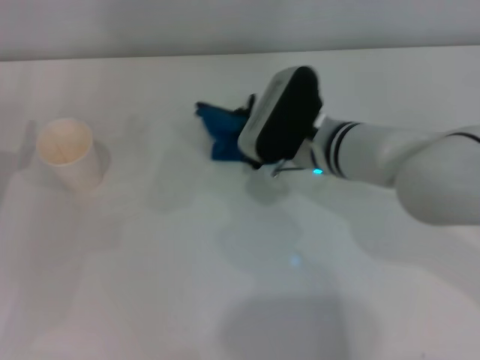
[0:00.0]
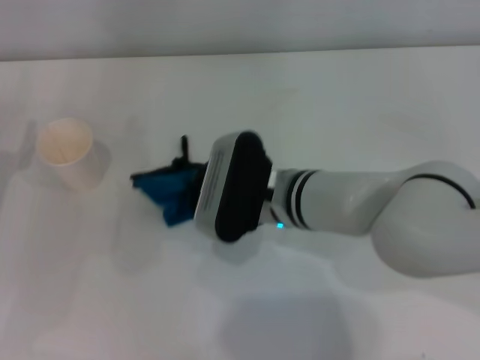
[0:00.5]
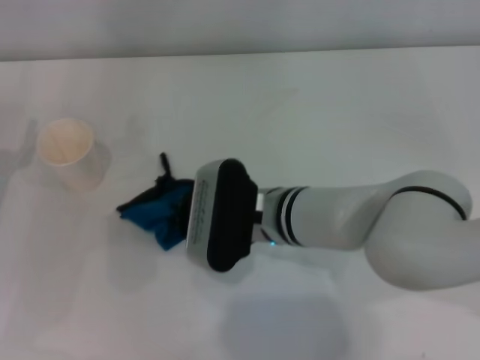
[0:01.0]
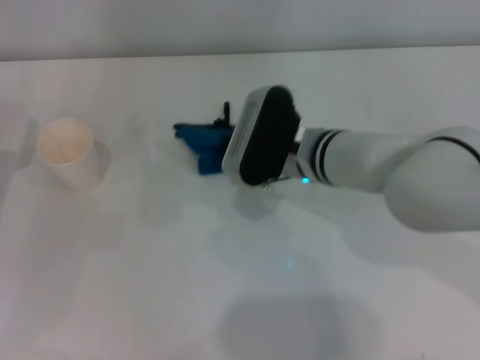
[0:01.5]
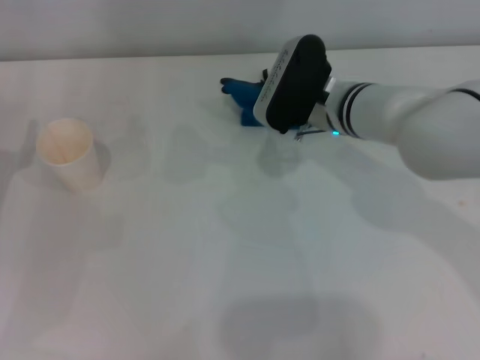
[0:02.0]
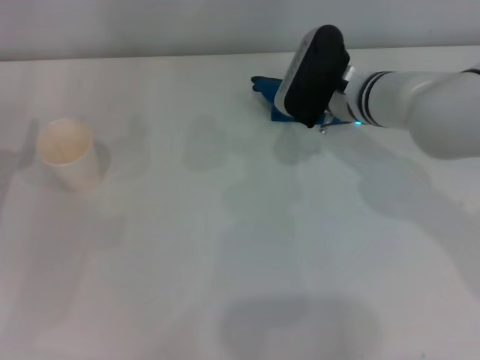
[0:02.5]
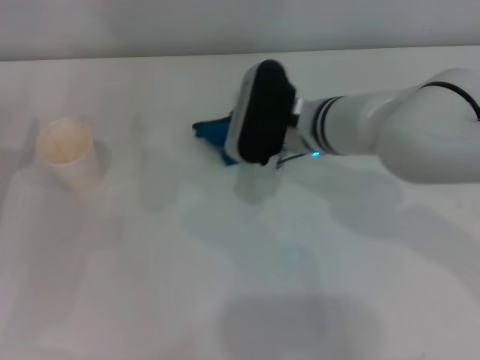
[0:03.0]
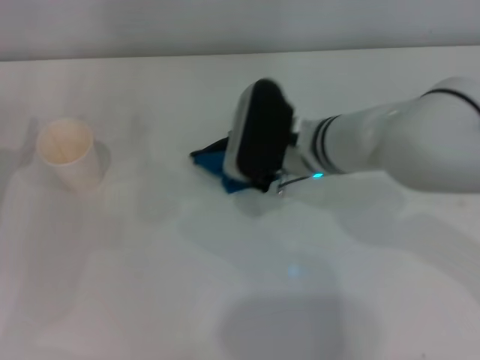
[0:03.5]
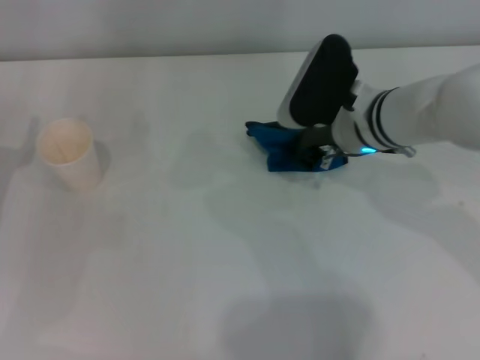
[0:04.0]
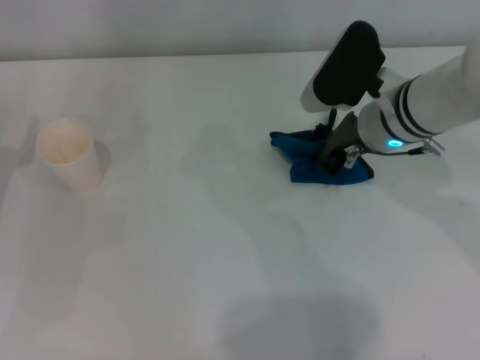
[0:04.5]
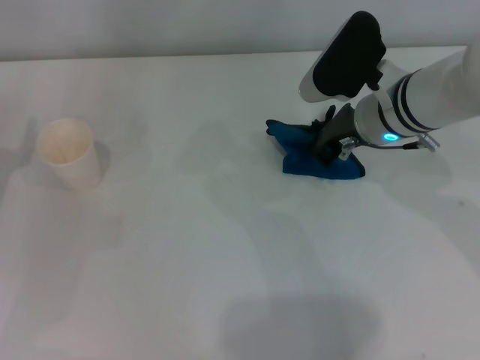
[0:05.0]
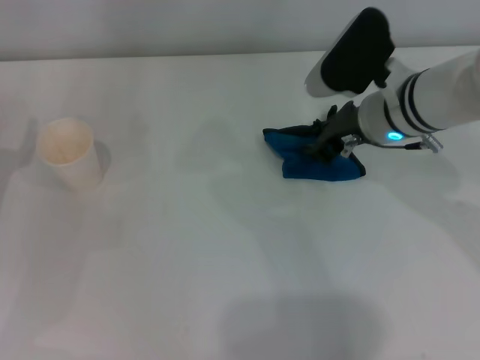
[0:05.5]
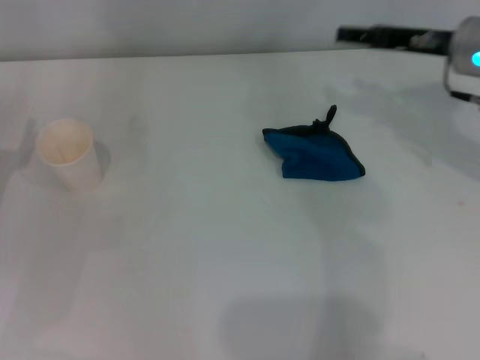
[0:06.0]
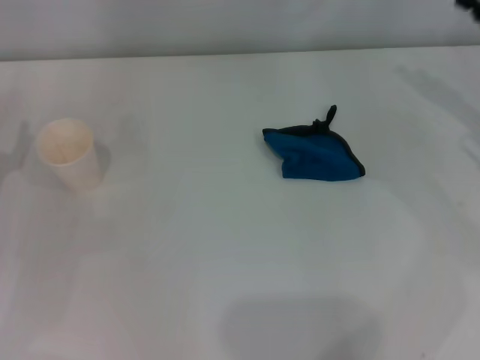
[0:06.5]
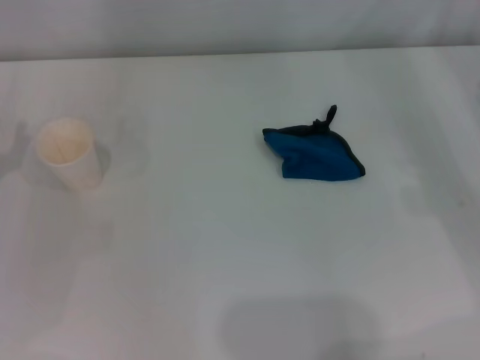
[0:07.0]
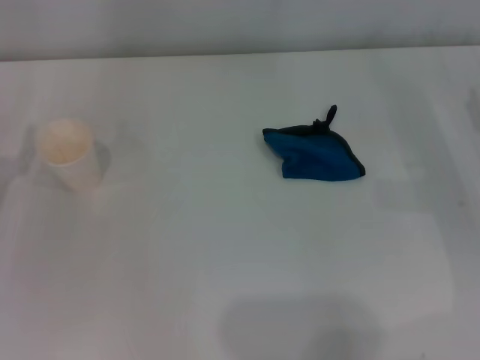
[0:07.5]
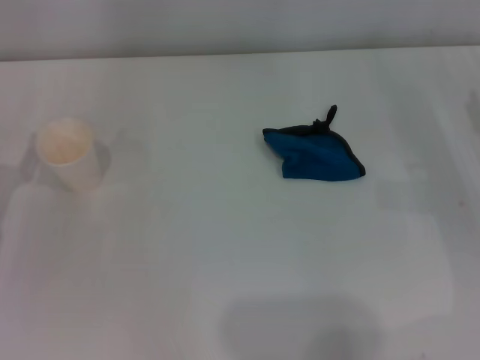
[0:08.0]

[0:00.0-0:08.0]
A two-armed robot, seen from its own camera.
Step, 0:00.0 to 0:03.5: Wipe the stains off the table with the right gripper.
Step, 0:04.0 to 0:05.0: Place the rag on the table with the right gripper.
0:04.0 to 0:06.0: The right gripper goes about 15 cm to the right and upward, and opens.
0:06.0 to 0:08.0: The right gripper goes roughly 15 cm downward, backward and to the right.
